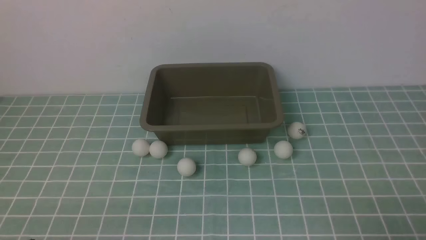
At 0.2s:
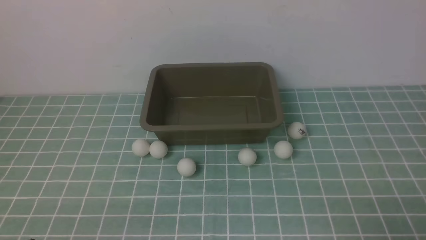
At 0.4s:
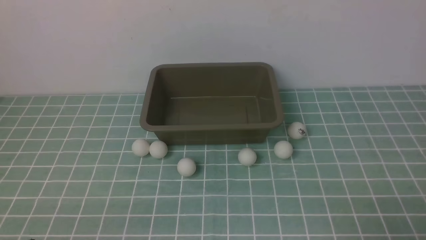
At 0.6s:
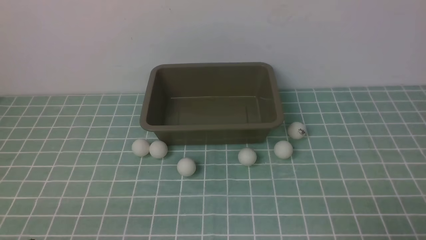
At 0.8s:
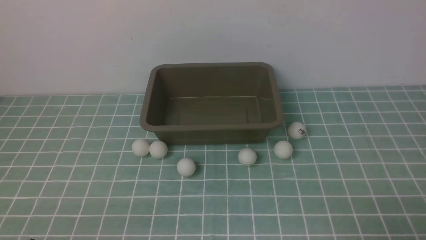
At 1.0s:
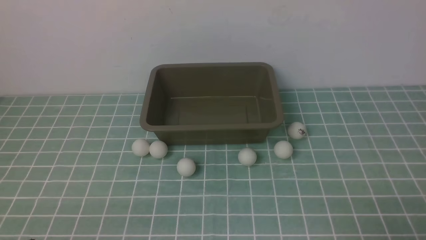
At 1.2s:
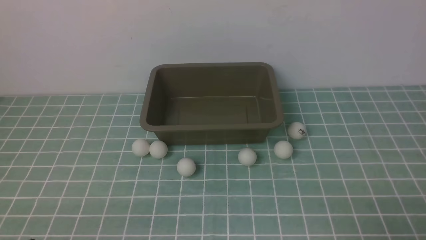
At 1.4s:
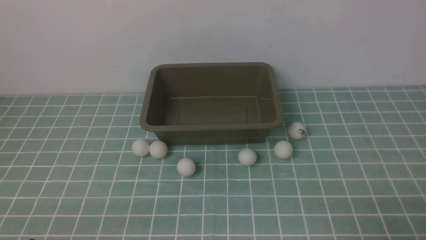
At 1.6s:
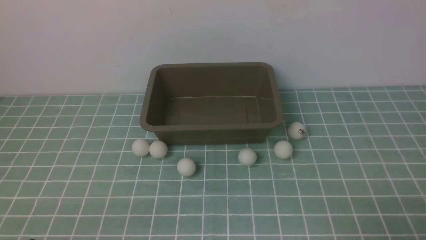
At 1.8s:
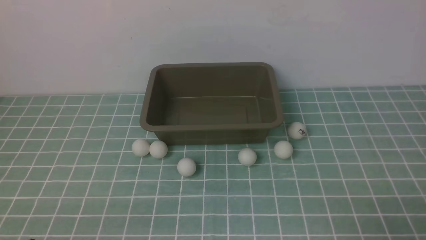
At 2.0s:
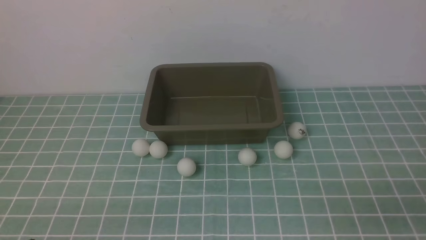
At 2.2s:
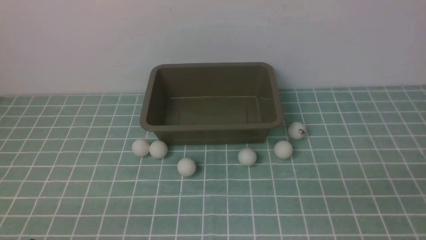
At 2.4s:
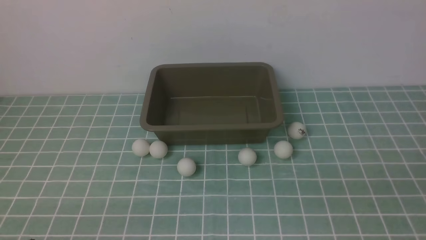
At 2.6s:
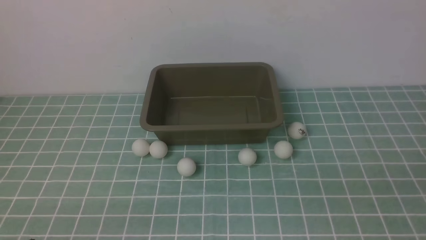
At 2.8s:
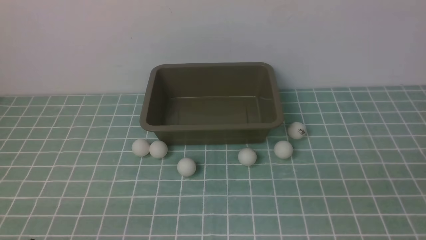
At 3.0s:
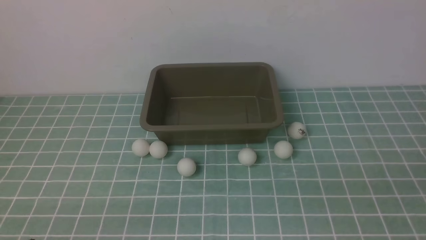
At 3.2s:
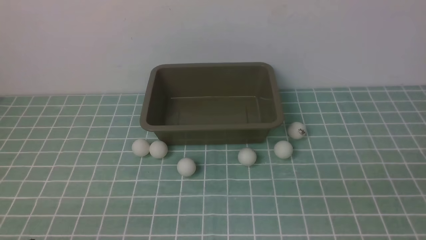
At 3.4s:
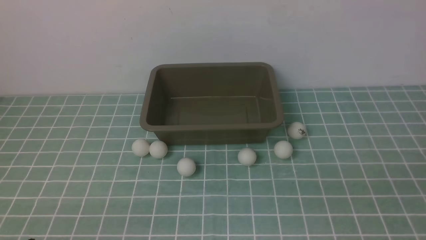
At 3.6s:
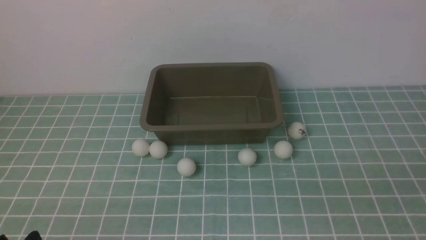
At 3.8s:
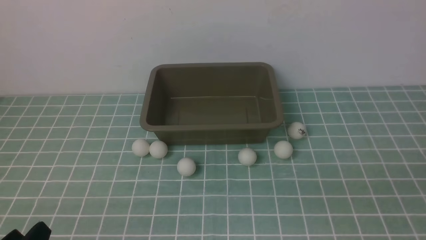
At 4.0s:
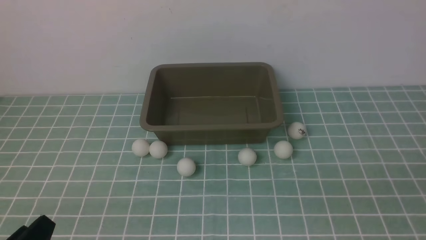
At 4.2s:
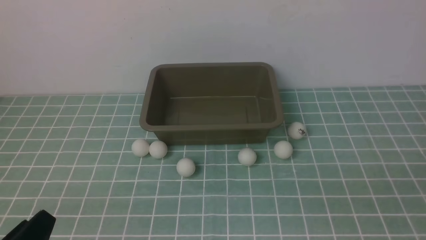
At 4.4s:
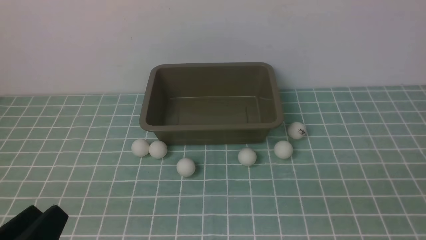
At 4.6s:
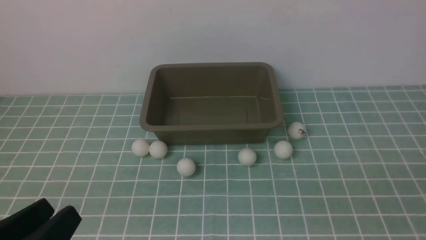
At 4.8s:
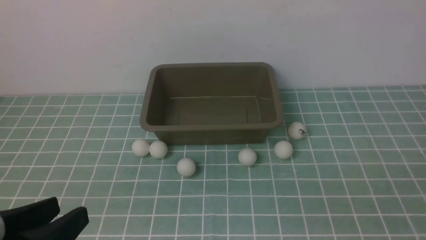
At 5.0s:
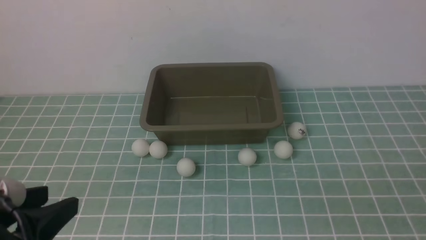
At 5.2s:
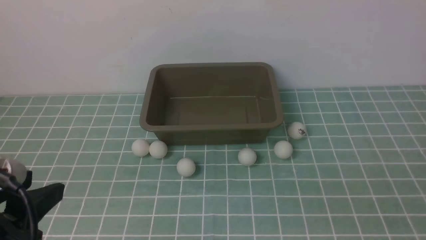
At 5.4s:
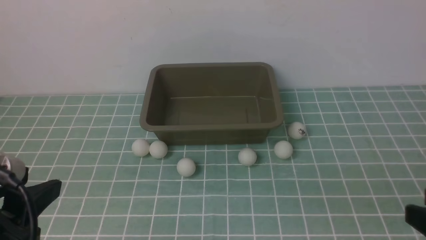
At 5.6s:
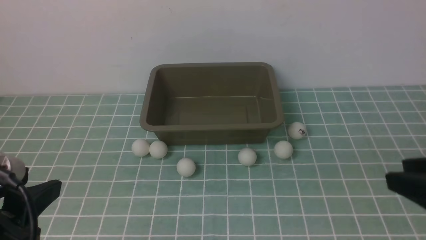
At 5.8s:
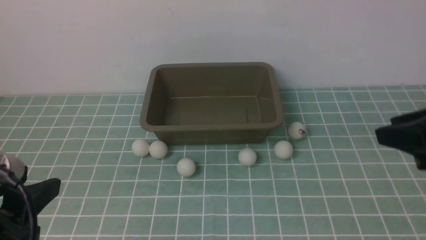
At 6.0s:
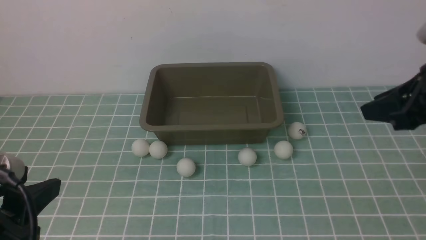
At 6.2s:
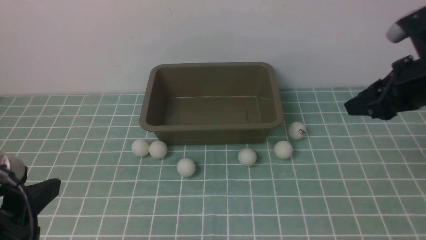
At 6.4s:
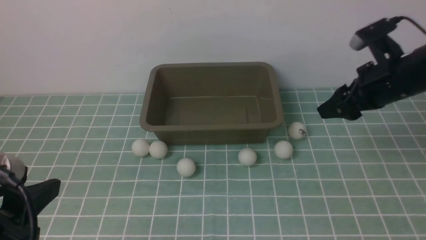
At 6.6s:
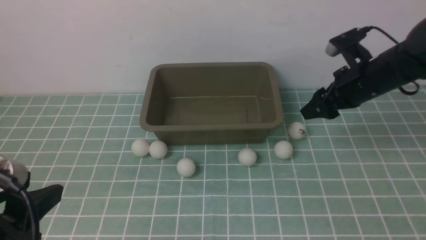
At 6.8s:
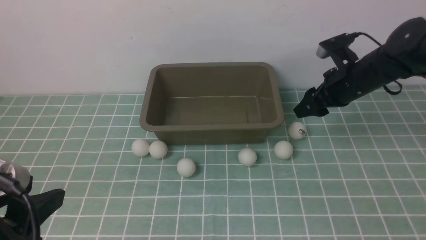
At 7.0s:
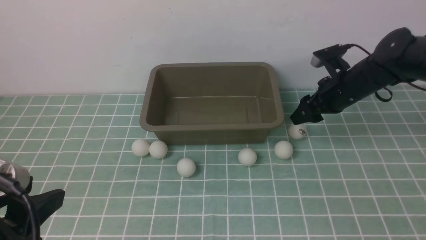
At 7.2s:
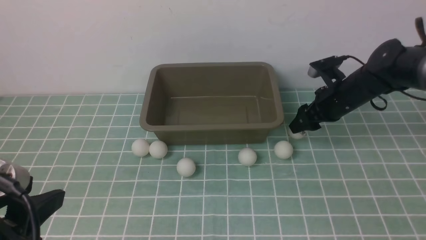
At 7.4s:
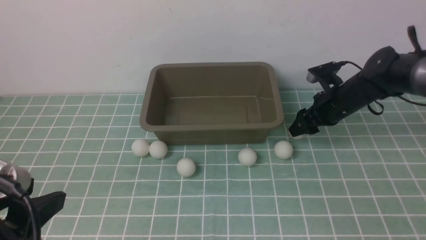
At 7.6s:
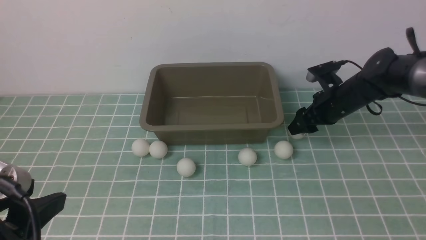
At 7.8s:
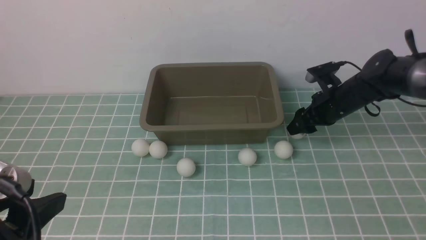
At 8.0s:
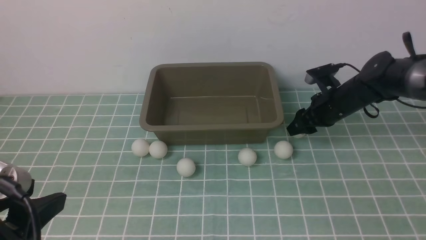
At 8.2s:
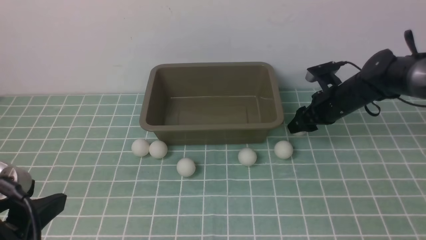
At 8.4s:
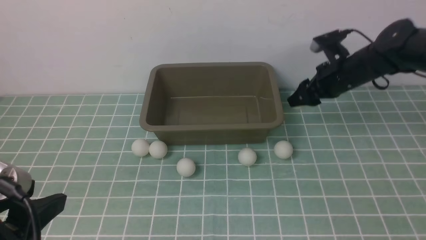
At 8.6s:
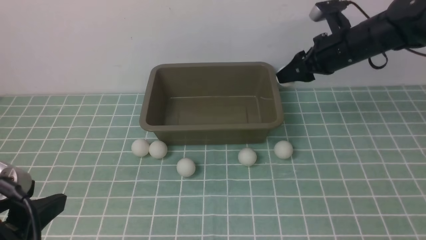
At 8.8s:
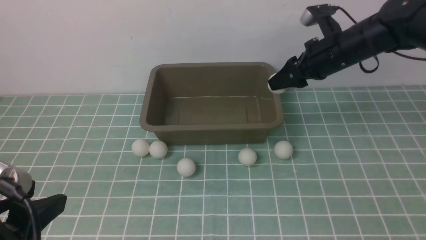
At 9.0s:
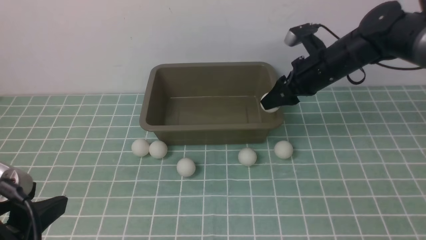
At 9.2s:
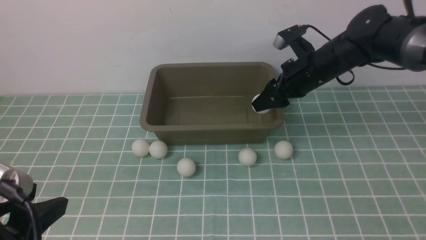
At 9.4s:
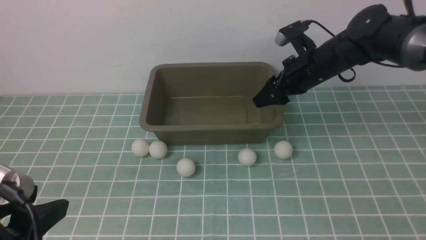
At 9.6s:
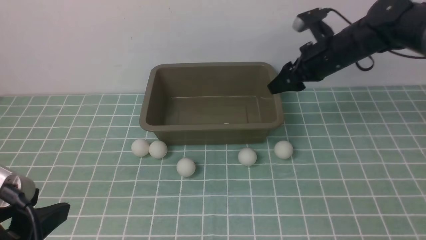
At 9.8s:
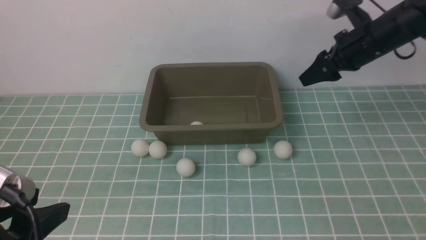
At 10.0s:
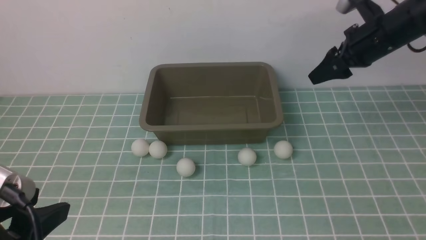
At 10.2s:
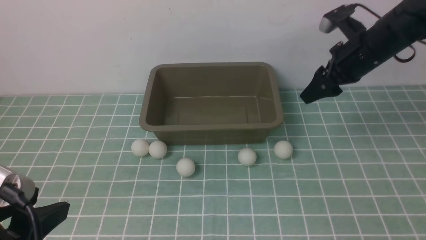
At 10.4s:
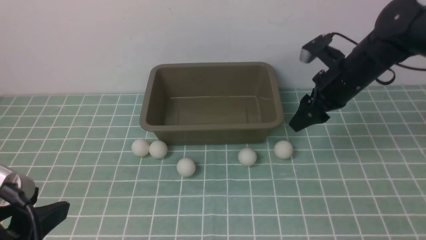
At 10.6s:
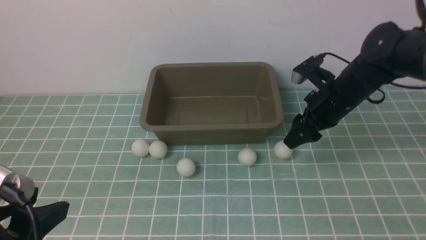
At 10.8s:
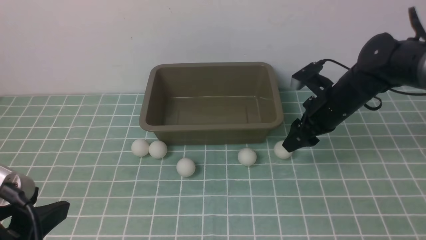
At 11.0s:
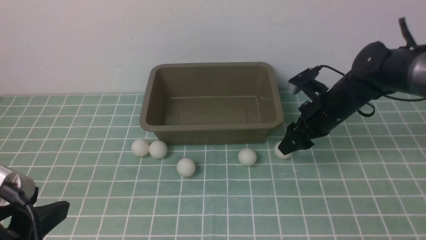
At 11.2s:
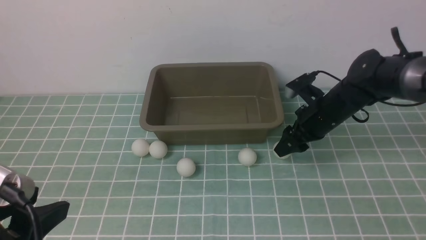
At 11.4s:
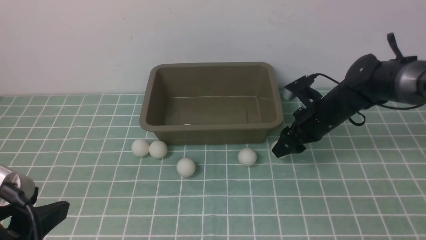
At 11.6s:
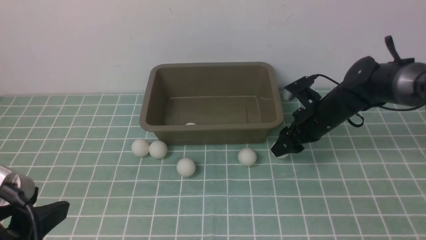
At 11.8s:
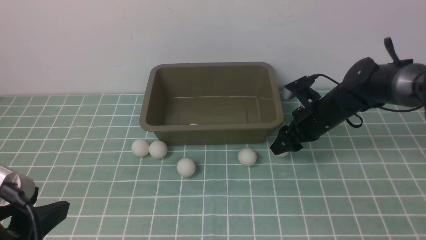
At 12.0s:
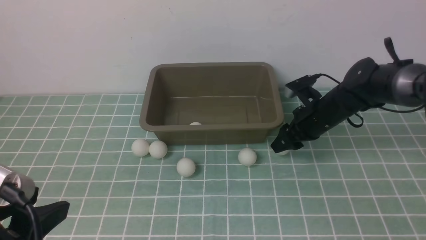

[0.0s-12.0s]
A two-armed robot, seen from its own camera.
Step, 0.0s to 8.4s: use the right arm to clamp the table tennis ball closest to it.
Step, 8.6s to 9.4s: use the right arm to put the table tennis ball into the box.
0.0s to 1.6s: Both grippers stay about where they are.
3.0s to 4.4s: The left gripper shifts some 5 cm upward.
4.4s to 6.0s: The right gripper travels forward by approximately 25 cm; the left gripper heads upward and forward, covering about 10 cm.
6.0s to 7.6s: The right gripper travels forward and downward by roughly 25 cm.
7.6s to 9.0s: The right gripper heads upward and to the left, covering approximately 10 cm.
10.4s to 12.0s: The right gripper heads downward, covering some 5 cm.

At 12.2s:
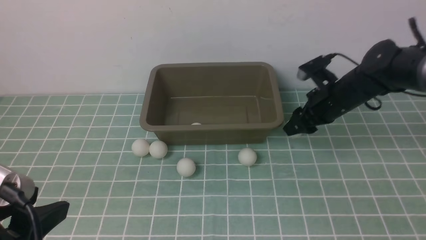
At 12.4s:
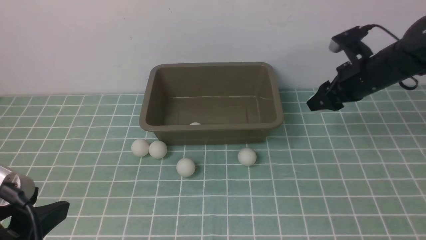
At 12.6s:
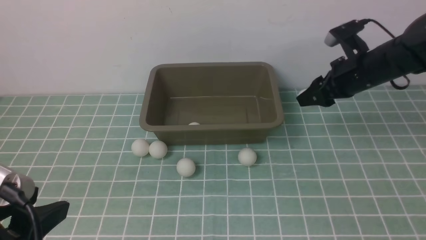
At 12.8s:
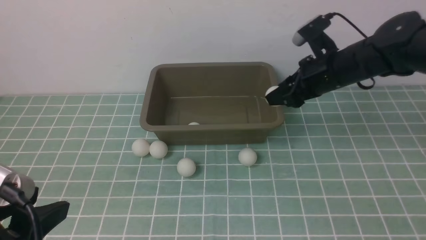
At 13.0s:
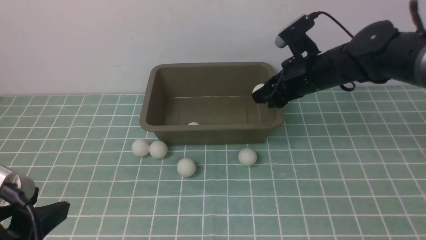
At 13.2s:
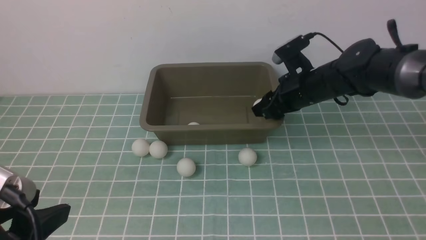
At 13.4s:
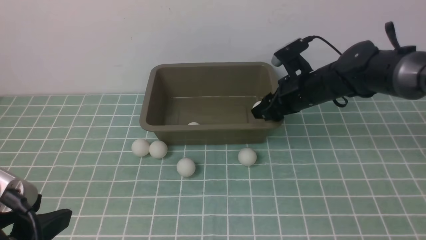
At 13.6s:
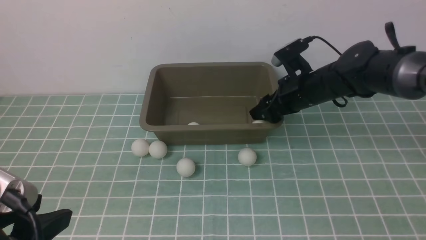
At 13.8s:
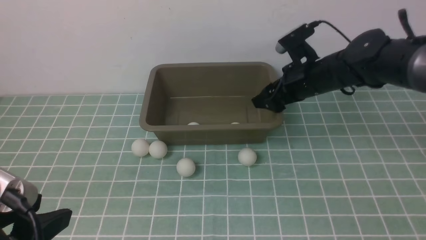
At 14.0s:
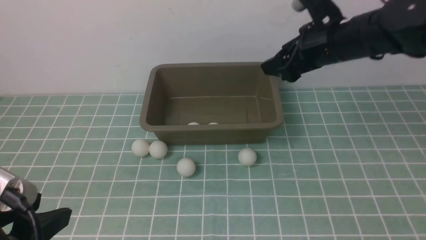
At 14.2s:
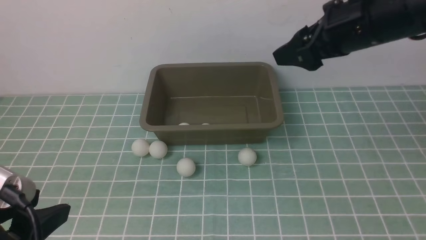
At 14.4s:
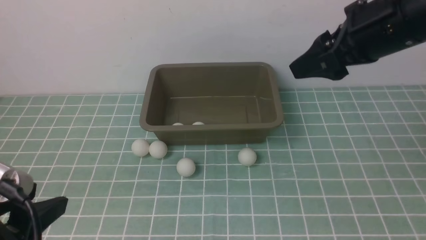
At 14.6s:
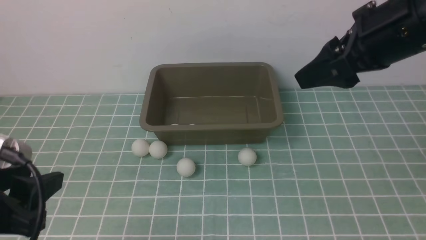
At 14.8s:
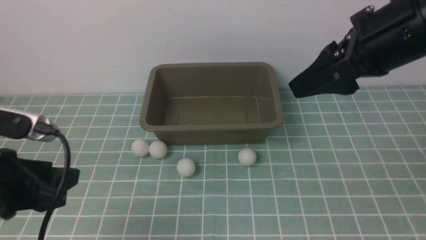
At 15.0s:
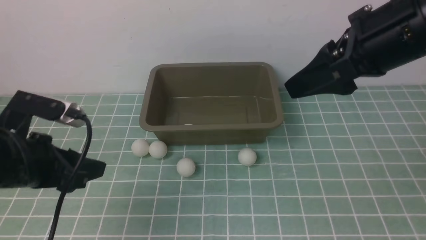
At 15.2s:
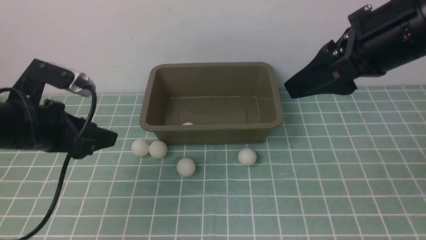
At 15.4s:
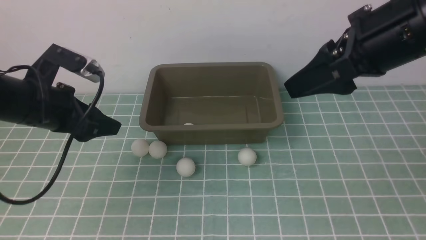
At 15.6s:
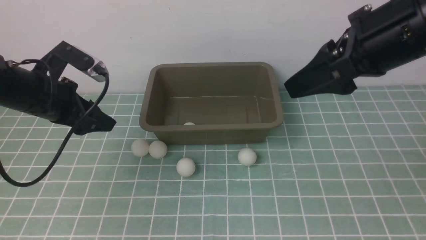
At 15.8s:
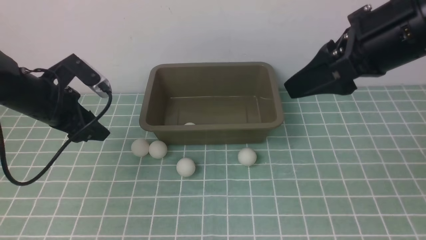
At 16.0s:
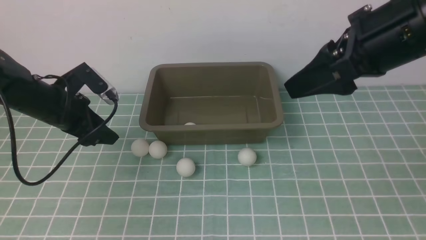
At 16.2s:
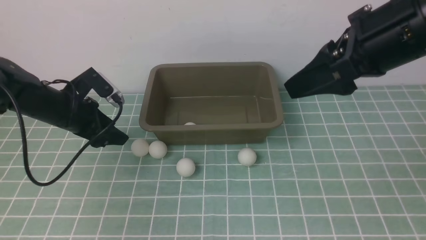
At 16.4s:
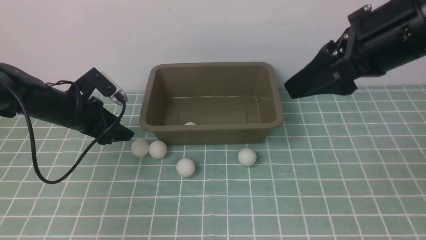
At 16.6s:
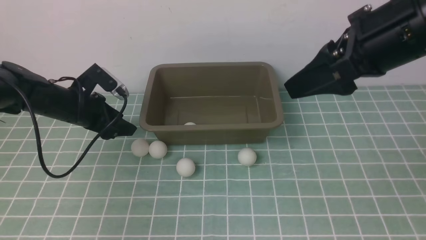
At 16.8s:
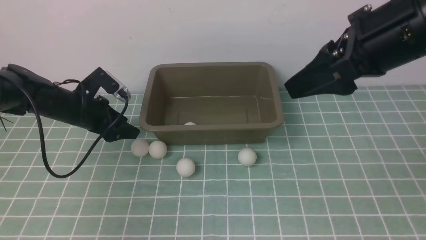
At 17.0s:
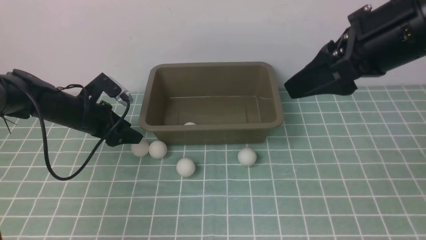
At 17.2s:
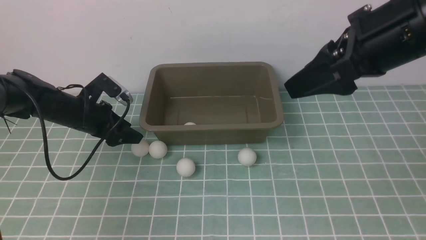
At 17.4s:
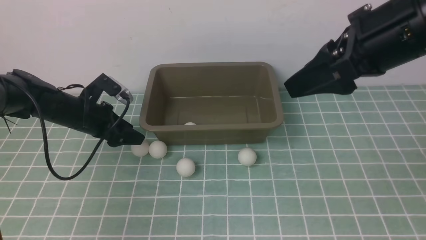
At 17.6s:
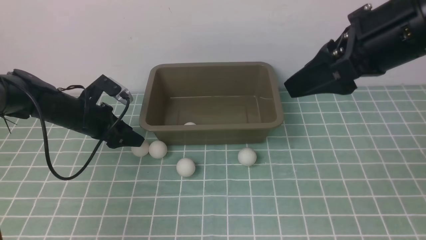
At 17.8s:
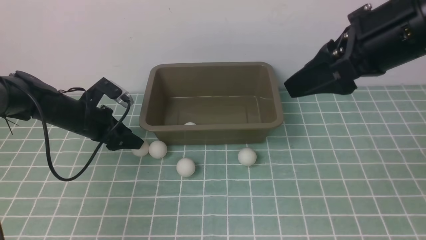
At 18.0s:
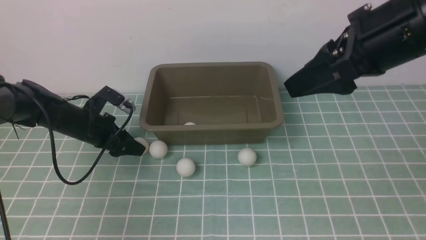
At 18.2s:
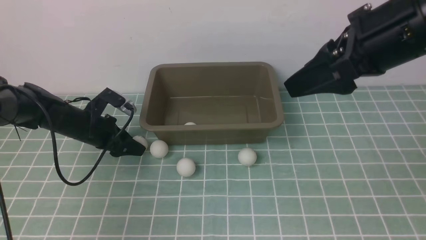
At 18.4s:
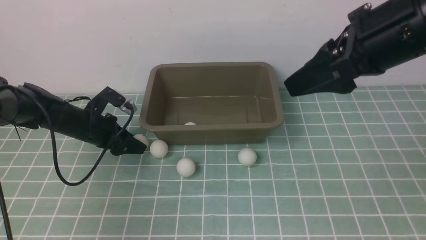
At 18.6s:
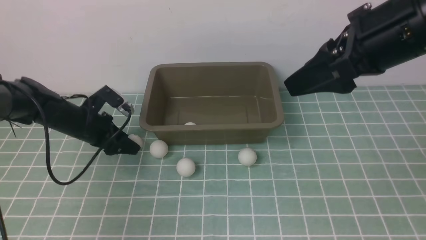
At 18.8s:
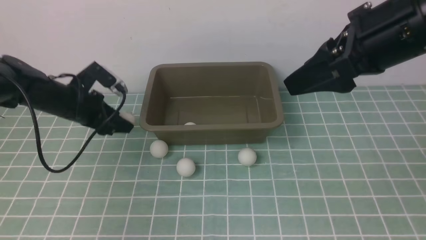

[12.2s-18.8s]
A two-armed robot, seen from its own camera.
Step, 12.6s to 13.6s: use the right arm to put the table tennis ball into the box.
Step, 13.8s to 18.6s: use the left arm to clamp the table tennis ball closest to it.
12.2s to 13.8s: The right gripper moves upward and to the left, approximately 10 cm.
13.8s to 15.4s: The left gripper travels forward by some 20 cm. The right gripper is displaced backward and upward by some 15 cm.
15.4s to 17.2s: The left gripper goes roughly 15 cm downward and forward.
17.2s to 18.8s: The left gripper shifts about 5 cm upward, and closes up.
